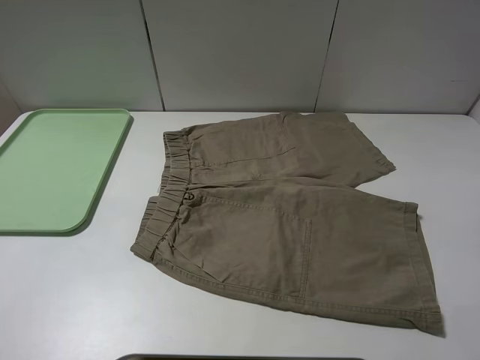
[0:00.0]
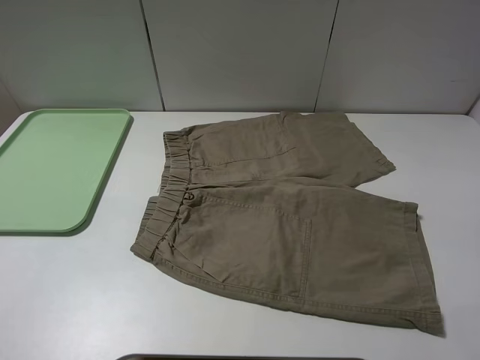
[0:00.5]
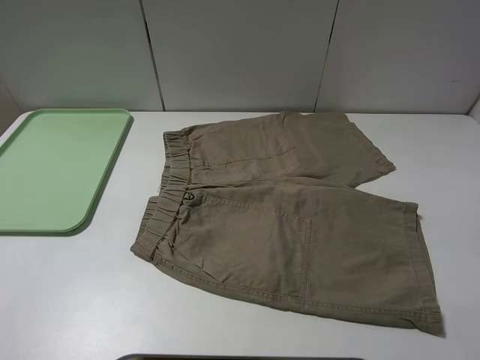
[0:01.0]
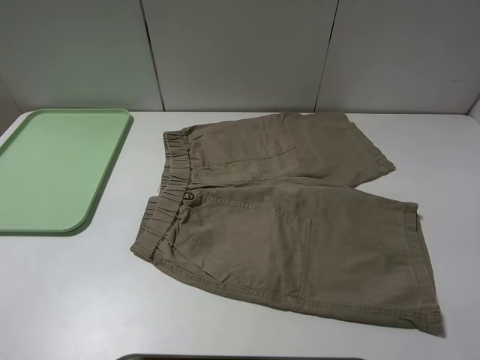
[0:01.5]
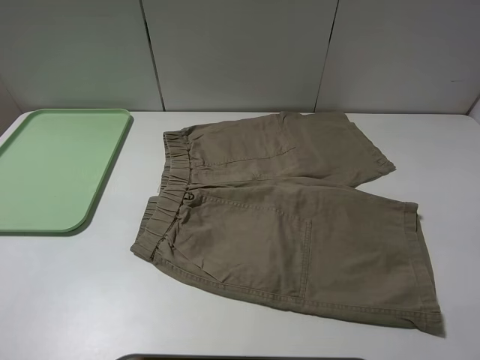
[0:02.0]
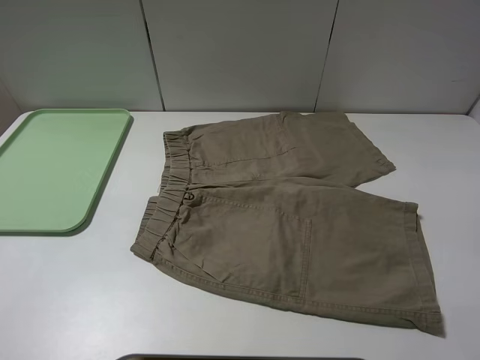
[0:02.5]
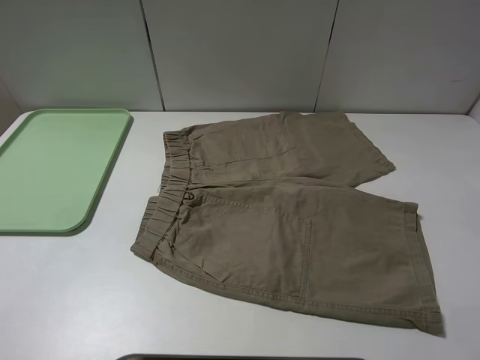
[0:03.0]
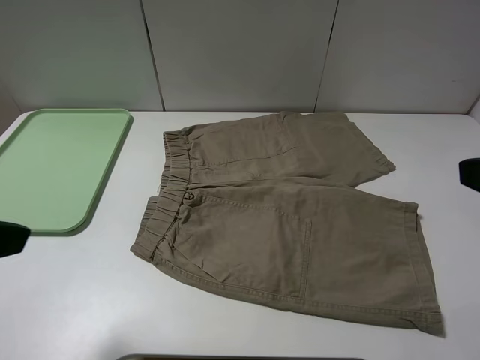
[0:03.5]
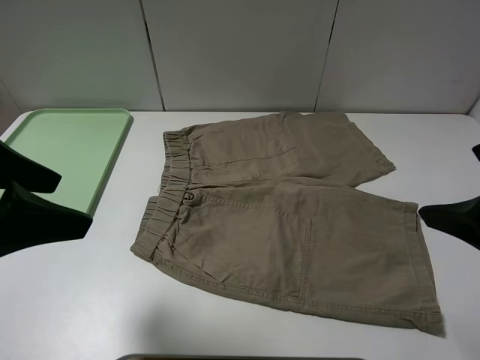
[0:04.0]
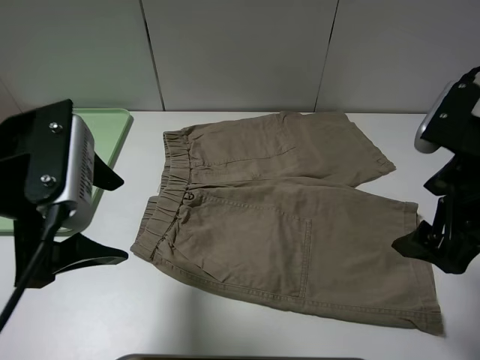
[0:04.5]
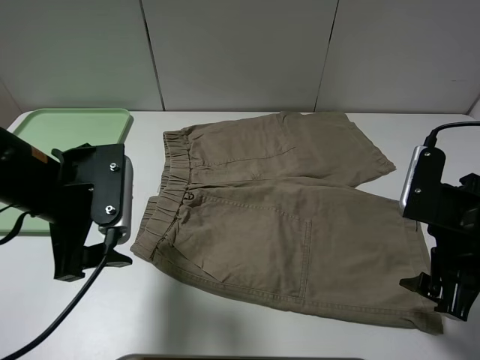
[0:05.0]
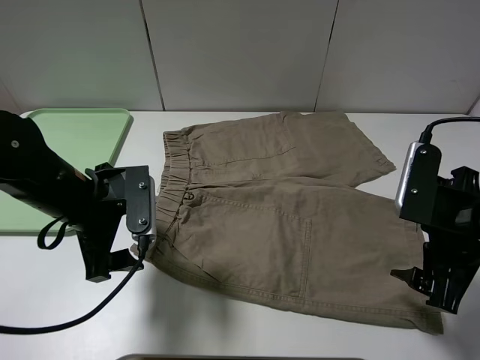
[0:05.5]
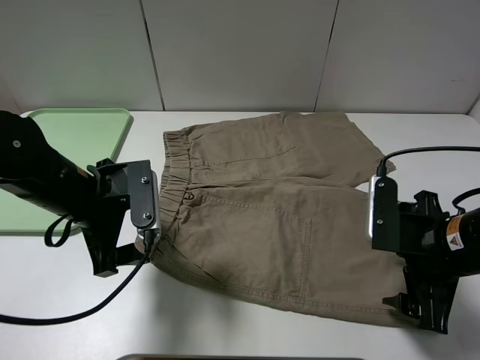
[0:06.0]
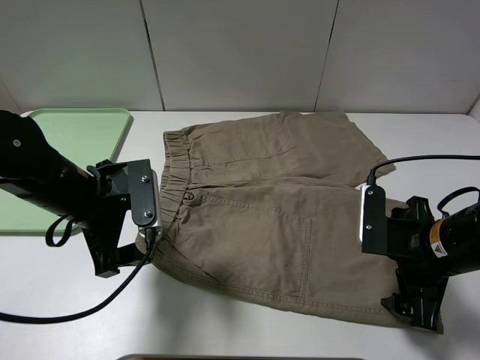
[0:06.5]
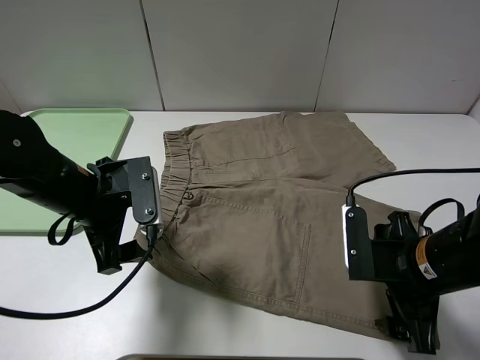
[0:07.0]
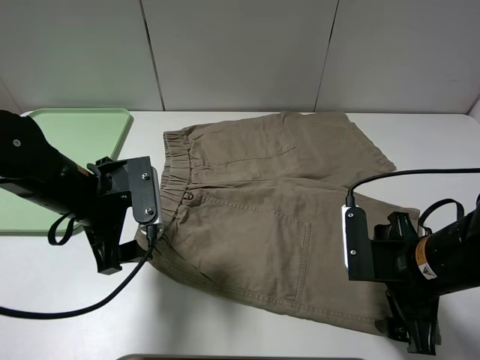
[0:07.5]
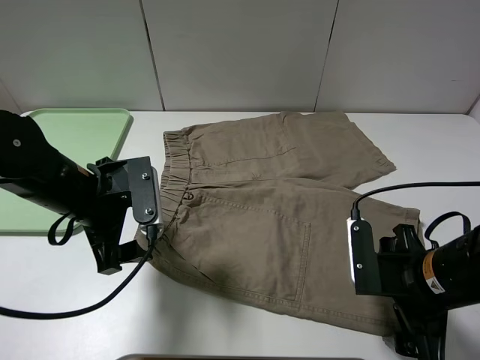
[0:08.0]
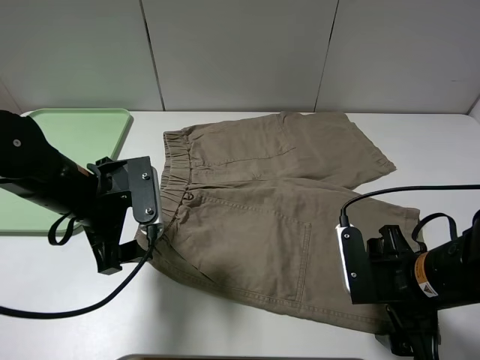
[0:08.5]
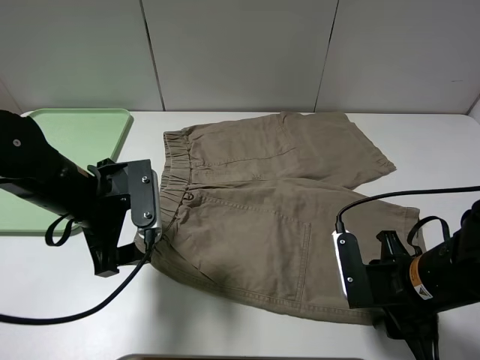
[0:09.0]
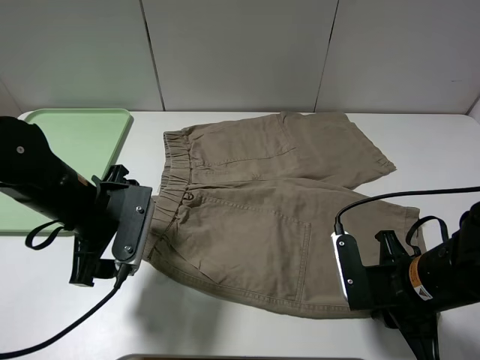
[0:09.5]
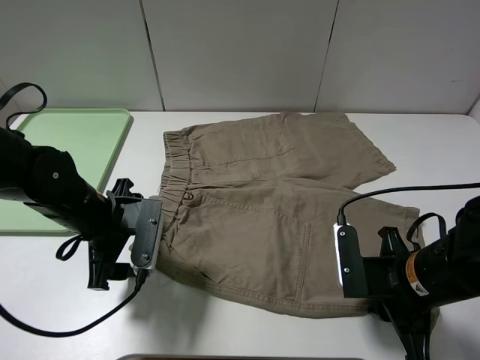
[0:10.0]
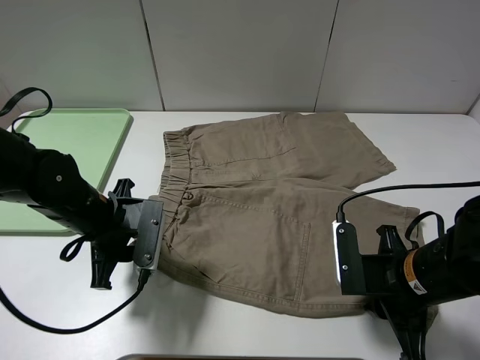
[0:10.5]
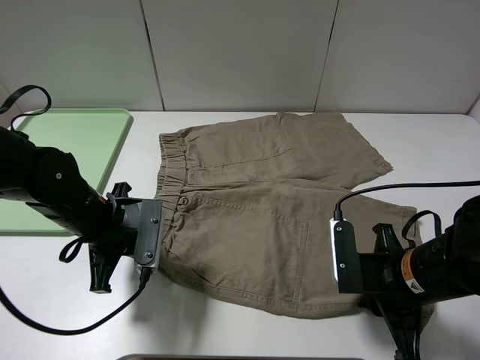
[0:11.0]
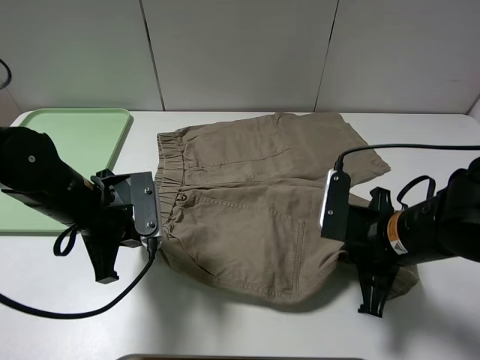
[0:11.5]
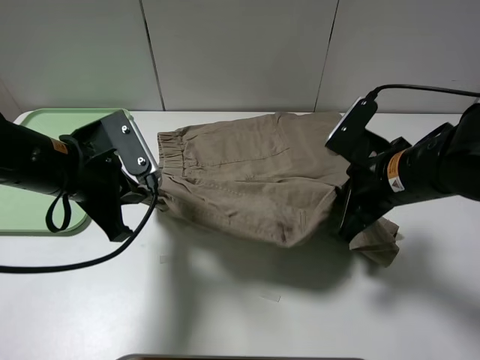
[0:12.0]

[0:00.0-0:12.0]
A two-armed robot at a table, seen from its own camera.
Task of the whole recording: fold the khaki jeans in half with two grippers, then fold them in half again, and use the left claw to place the folded fold khaki jeans on the tray.
Step, 0:00.0 to 0:11.0: Grasp the khaki trousers with the left gripper.
0:00.0 to 0:02.0: Both grippers stay about where they are.
0:02.0 to 0:04.0: The left gripper heads forward and to the right, covering some 15 cm, while the right gripper is displaced forward and to the left by approximately 15 cm.
0:04.0 to 0:06.0: The left gripper heads downward, forward and to the right, covering roughly 15 cm; the right gripper goes some 15 cm downward.
0:06.0 to 0:08.0: The grippers stay close to where they were, moving slightly.
0:08.0 to 0:10.0: The right gripper closes.
0:10.0 to 0:12.0: The right gripper goes about 10 cm forward and upward; the left gripper is displaced upward by roughly 10 cm, and closes.

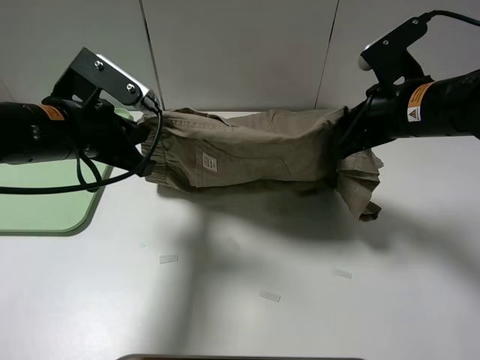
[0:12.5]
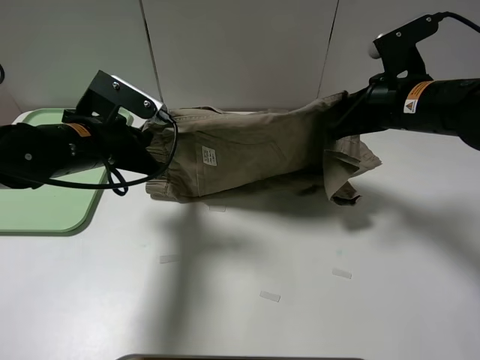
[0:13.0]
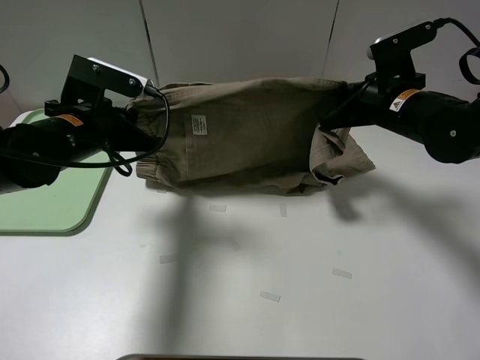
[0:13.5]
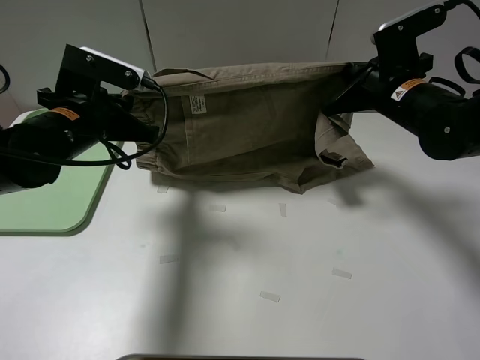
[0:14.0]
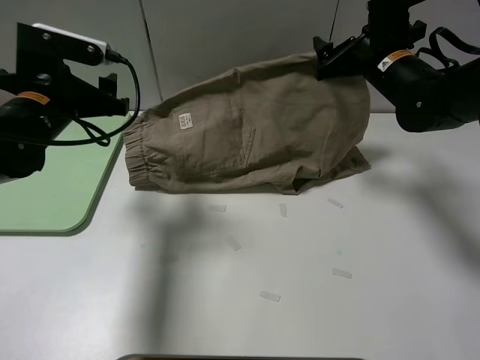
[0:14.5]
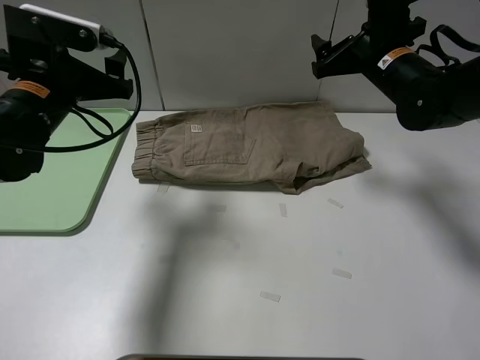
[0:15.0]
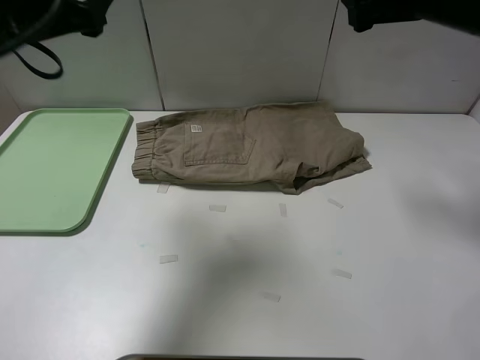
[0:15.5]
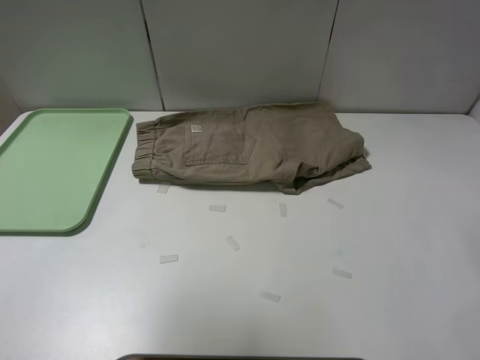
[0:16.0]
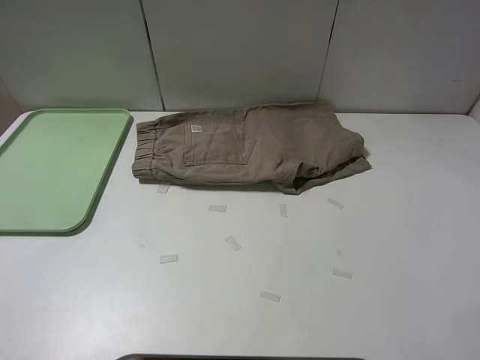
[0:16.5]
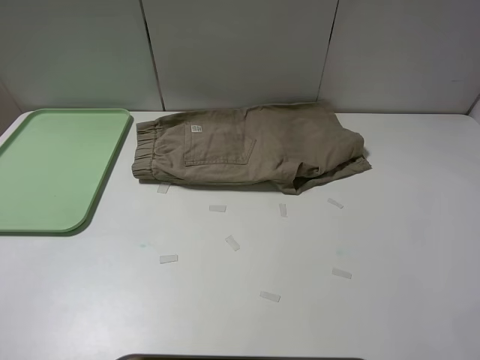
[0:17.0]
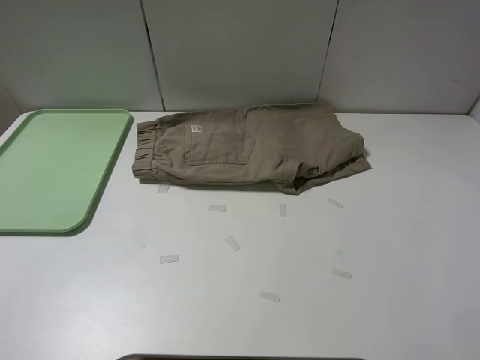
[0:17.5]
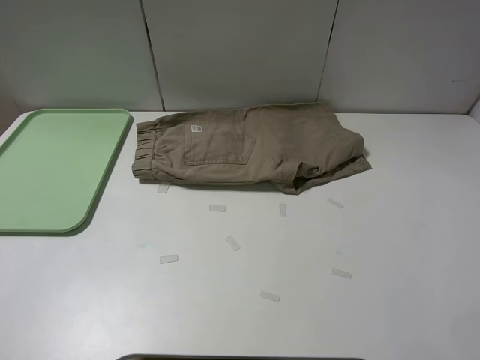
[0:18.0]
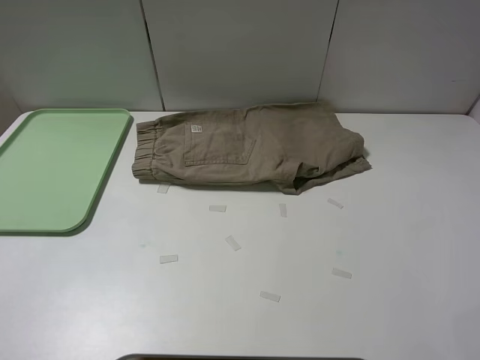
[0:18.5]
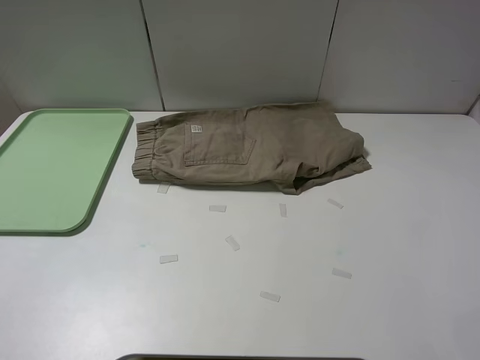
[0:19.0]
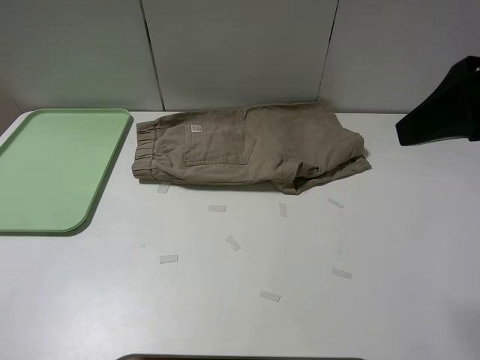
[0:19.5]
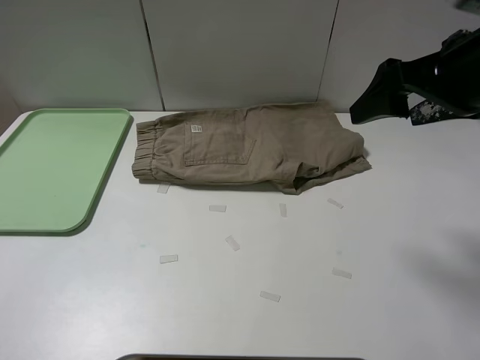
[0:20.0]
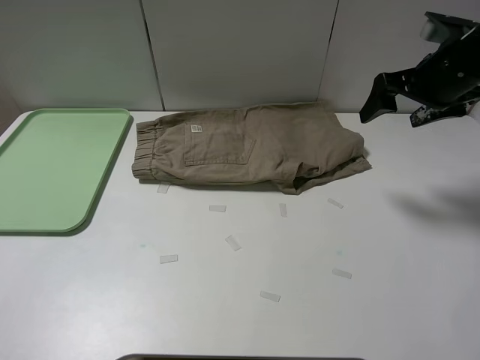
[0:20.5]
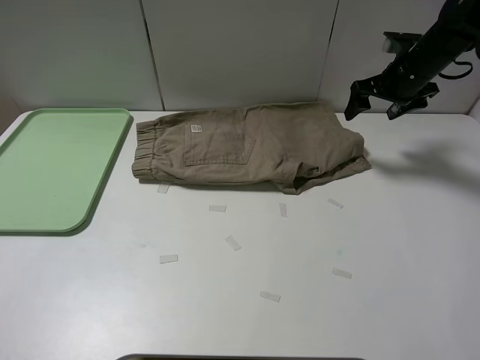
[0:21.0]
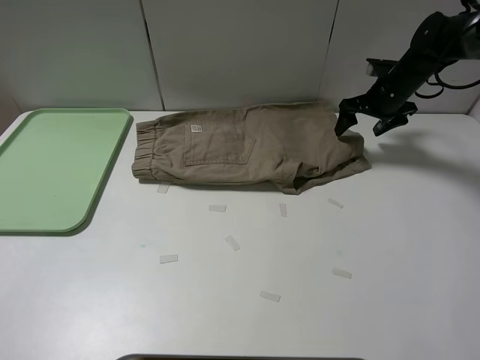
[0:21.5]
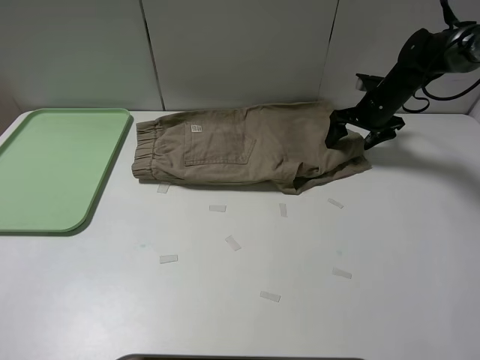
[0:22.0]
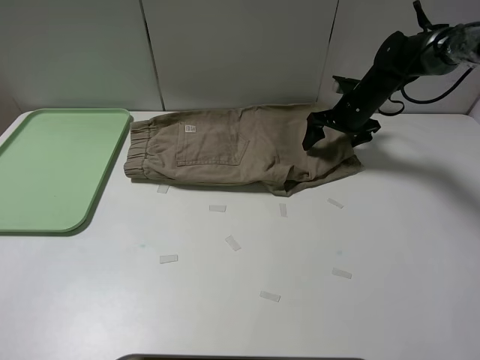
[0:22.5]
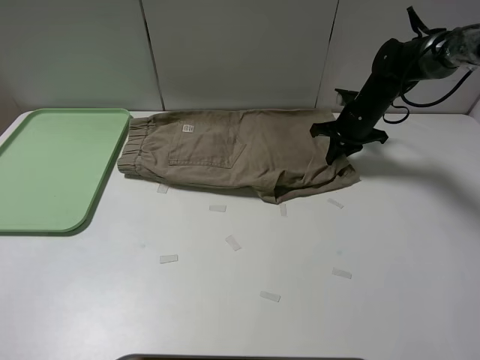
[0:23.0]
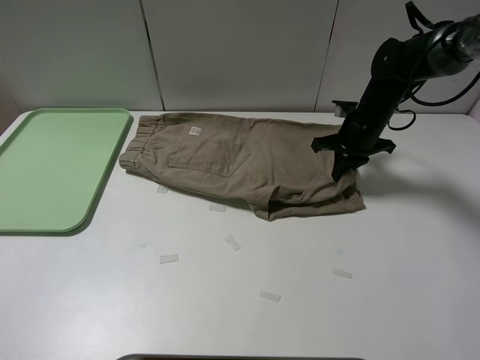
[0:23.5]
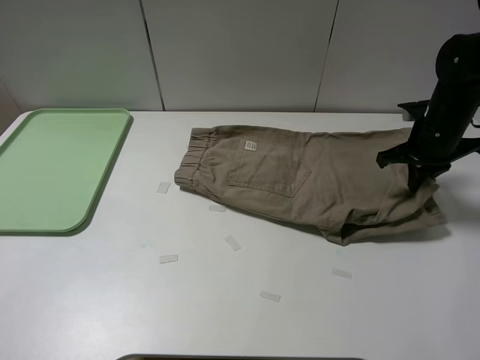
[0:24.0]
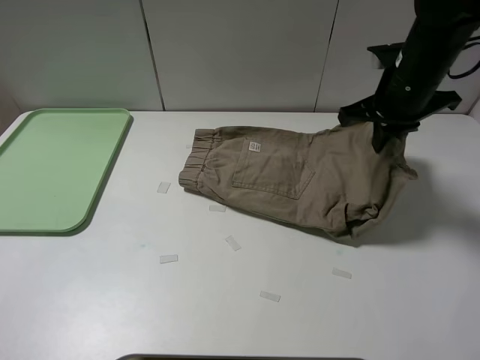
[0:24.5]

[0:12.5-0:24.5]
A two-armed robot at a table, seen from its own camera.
Task of the whole recording: fold the khaki jeans in half with two grippers, then fold them in half again, and use the left claw to place the folded fold khaki jeans on the tray.
Step, 0:12.5 to 0:14.5: Fold the khaki trousers upwards with the left gripper.
Step, 0:15.0 to 0:23.0: Grasp the khaki trousers with the right gripper.
0:12.5 to 0:14.5: The right gripper shifts about 10 cm forward, and opens up. Meanwhile the left gripper changes place by about 5 cm, and opens its fingers.
0:14.5 to 0:16.5: The two grippers go roughly 30 cm backward and upward.
0:18.5 to 0:20.5: The right gripper travels forward and downward by roughly 35 cm.
0:20.5 to 0:22.5: The right gripper is displaced downward and forward by about 20 cm.
0:22.5 to 0:24.5: The right gripper travels backward and upward by some 20 cm, and closes its fingers.

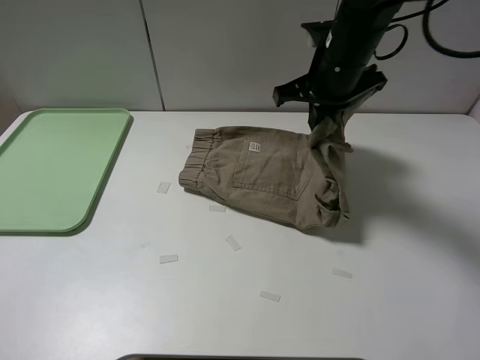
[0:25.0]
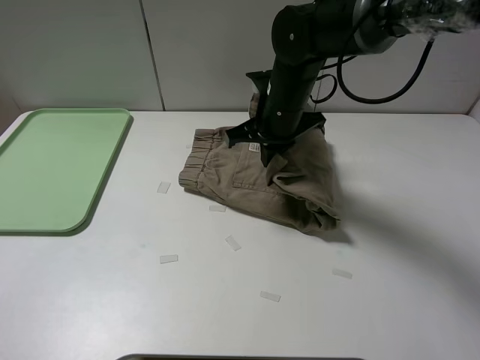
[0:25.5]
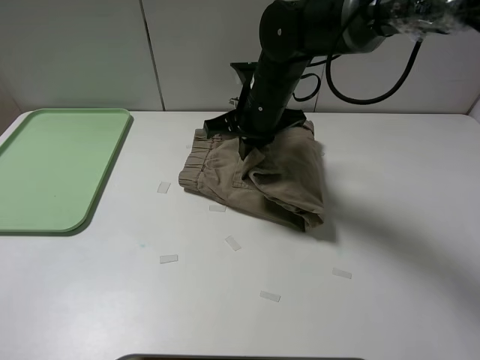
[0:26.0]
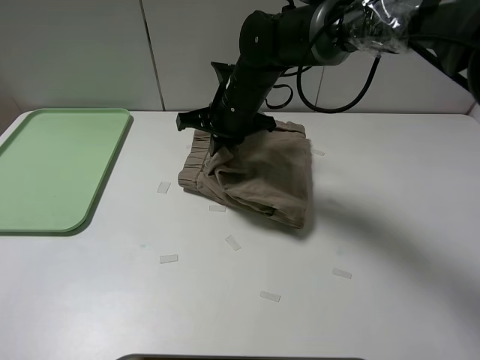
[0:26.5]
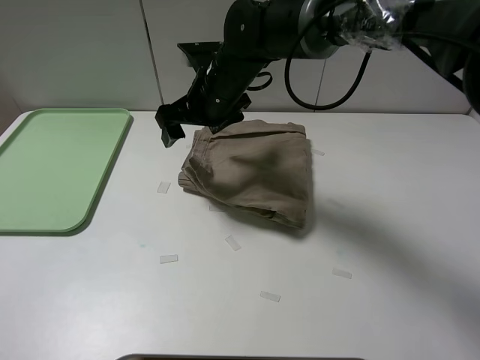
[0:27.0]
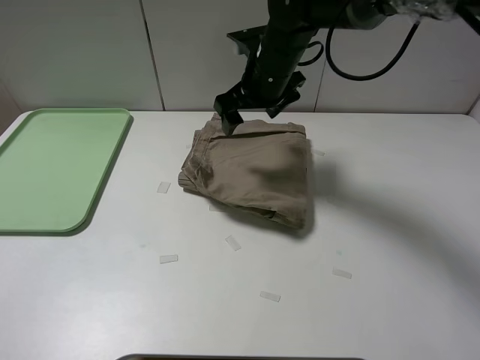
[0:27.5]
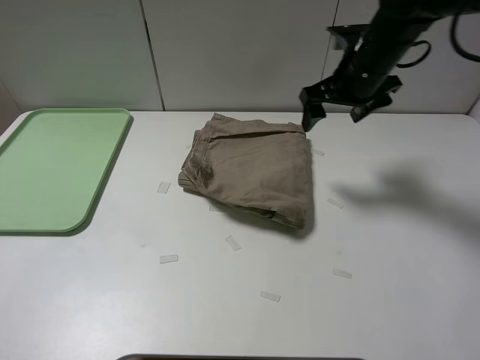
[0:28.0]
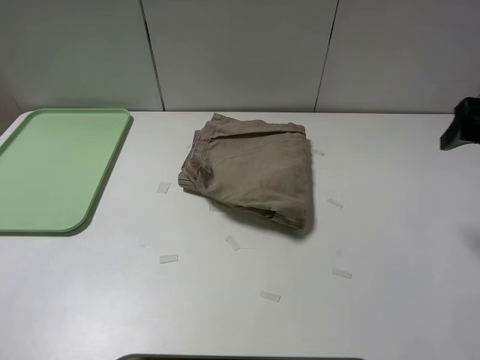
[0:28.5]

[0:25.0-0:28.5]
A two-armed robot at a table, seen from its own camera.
Task of the whole recording: fold the khaki jeans in half with two grippers, then fold them in half again, and use the left claw to place the folded fold khaki jeans on the tray.
0:25.0 to 0:27.0: The right gripper moves to the left, some 15 cm, and opens.
0:27.0 to 0:28.5: The right gripper shifts about 35 cm to the right.
